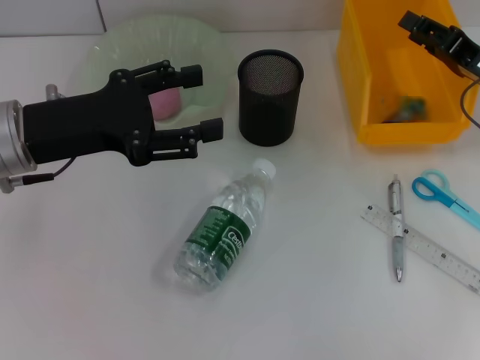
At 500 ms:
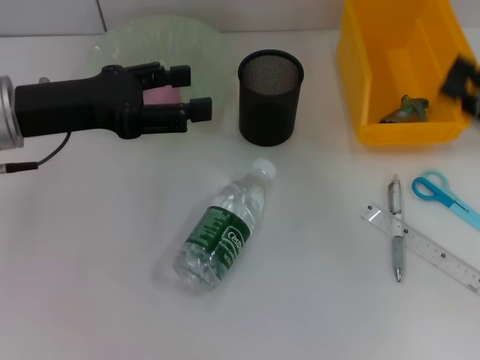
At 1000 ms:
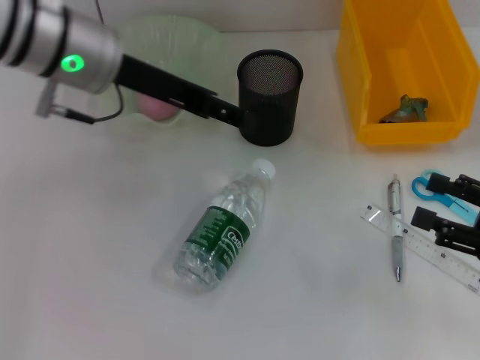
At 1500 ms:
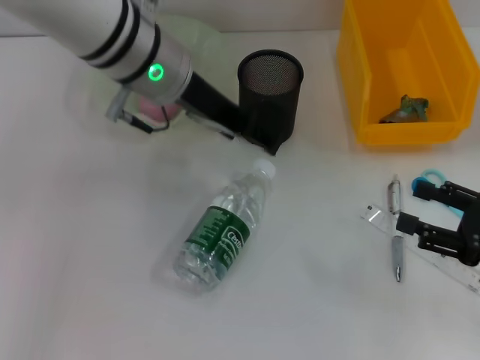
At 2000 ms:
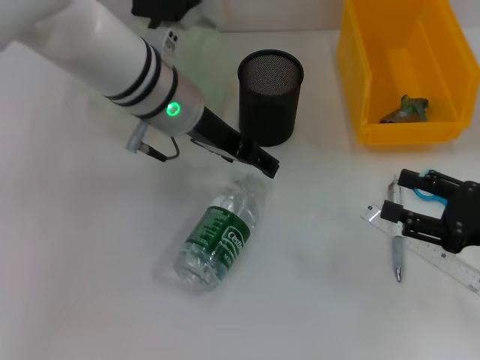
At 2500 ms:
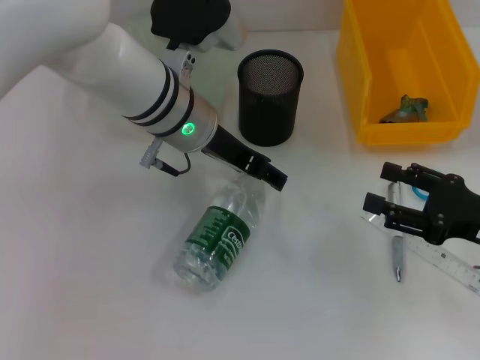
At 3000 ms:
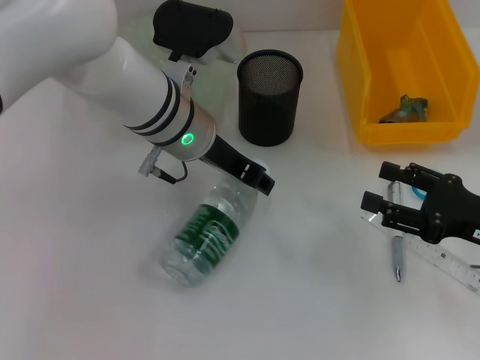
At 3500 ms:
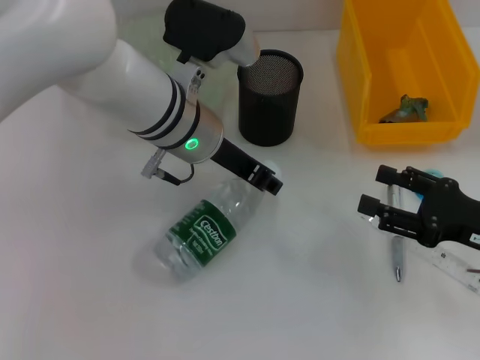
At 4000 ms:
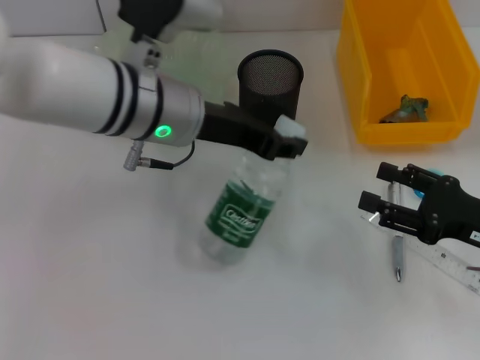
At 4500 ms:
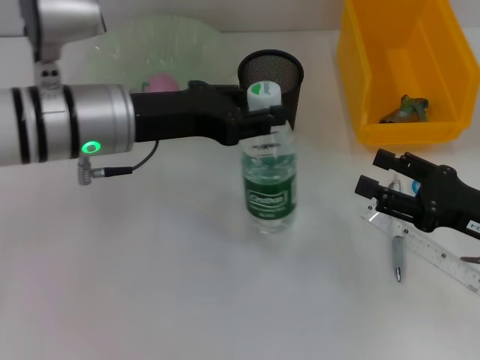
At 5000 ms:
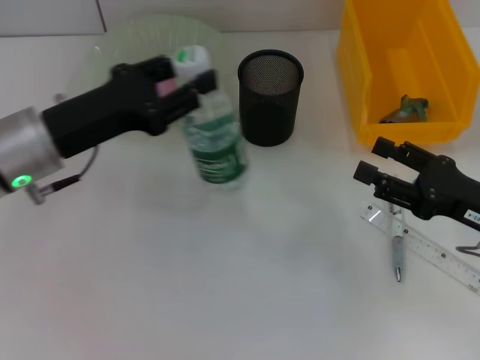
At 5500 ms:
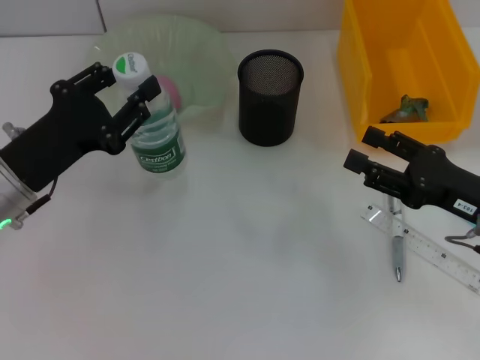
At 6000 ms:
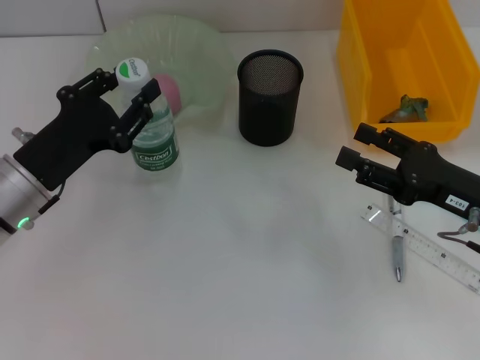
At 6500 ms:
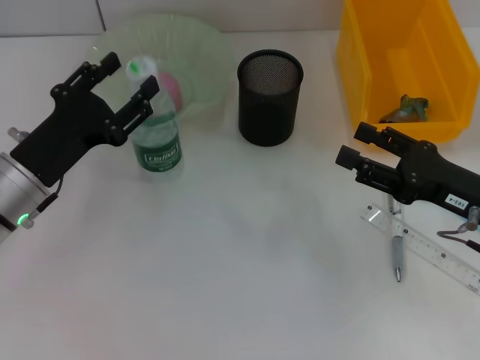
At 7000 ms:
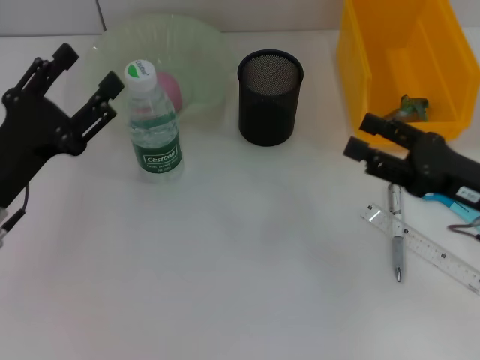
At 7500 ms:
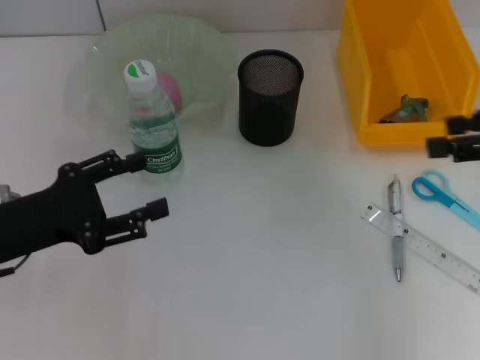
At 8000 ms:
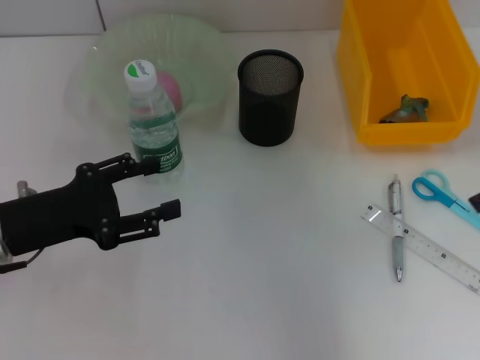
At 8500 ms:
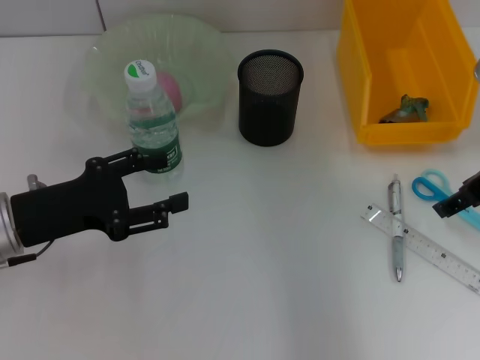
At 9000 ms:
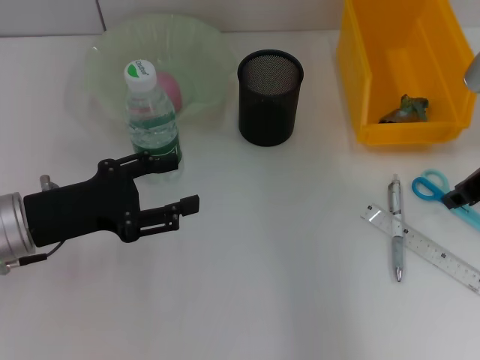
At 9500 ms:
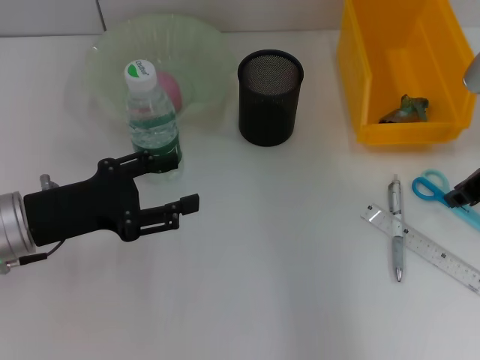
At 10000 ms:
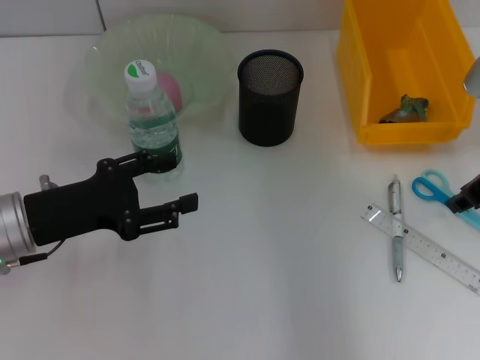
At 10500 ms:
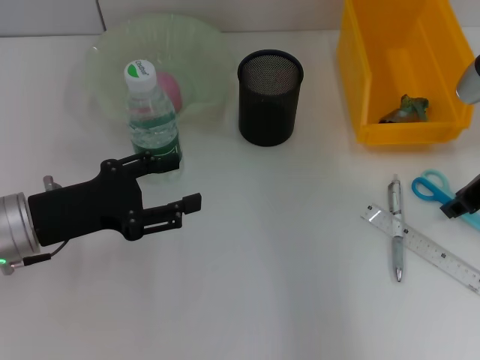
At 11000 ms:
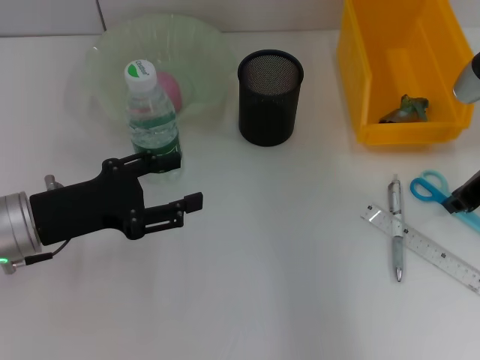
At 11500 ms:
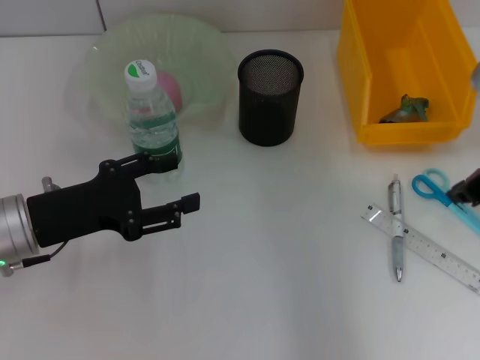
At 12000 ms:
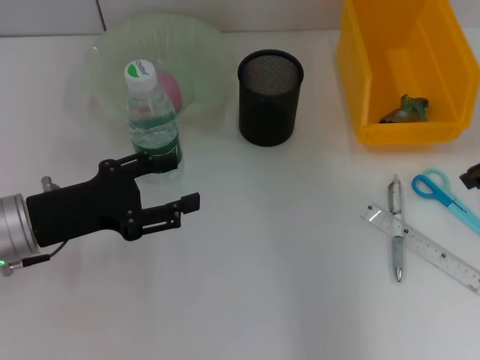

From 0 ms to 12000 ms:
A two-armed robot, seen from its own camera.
Step, from 500 ms to 3000 ms: Grab the water bottle with the left hand.
Step, from 3500 ms to 6500 ms: Place the water bottle on the table with the left hand.
From 0 ms to 2000 ms: The left gripper moves to the right and forward, roughly 15 cm, while the right gripper goes some 15 cm backward, and opens.
From 2000 ms to 4000 ms: The left gripper closes its fingers.
From 4000 ms to 6000 ms: The left gripper heads to the left, downward and backward, covering roughly 20 cm.
From 6000 ms to 8000 ms: The left gripper opens up. The right gripper goes about 15 cm upward.
From 8000 ms to 10000 ms: The right gripper shifts roughly 5 cm downward, and closes its fingers.
From 10000 ms to 12000 ms: The grippers make only small movements.

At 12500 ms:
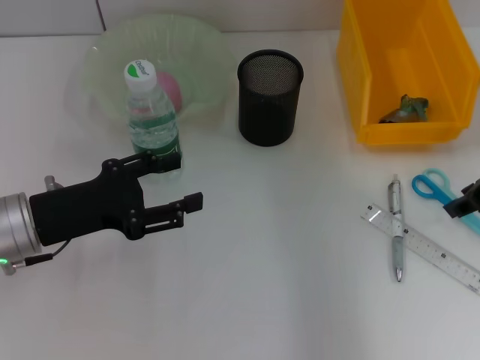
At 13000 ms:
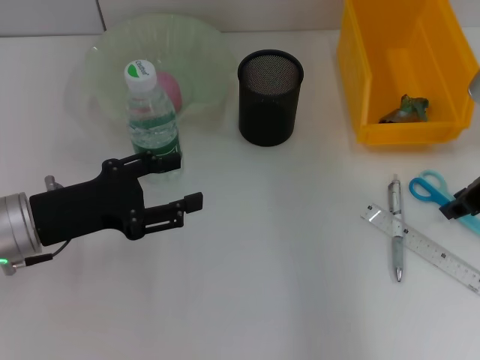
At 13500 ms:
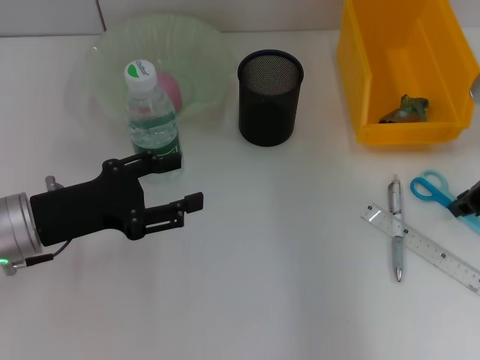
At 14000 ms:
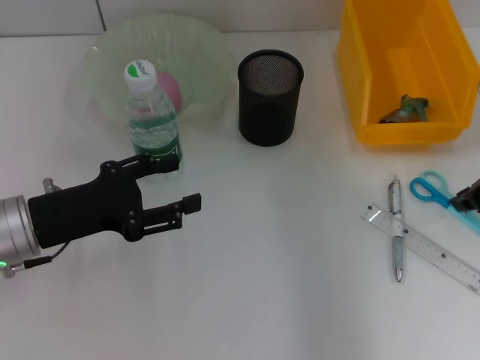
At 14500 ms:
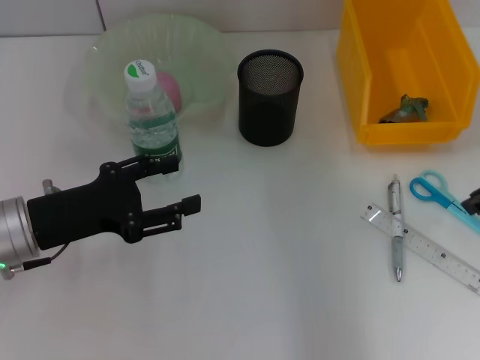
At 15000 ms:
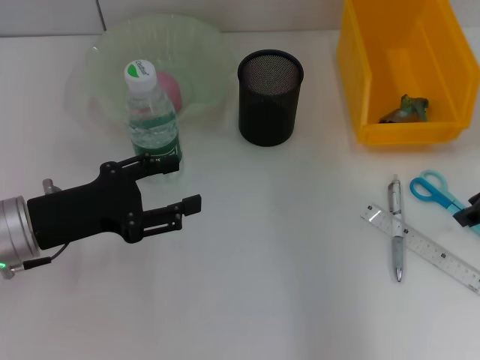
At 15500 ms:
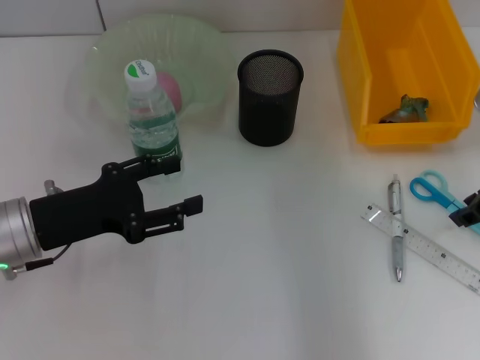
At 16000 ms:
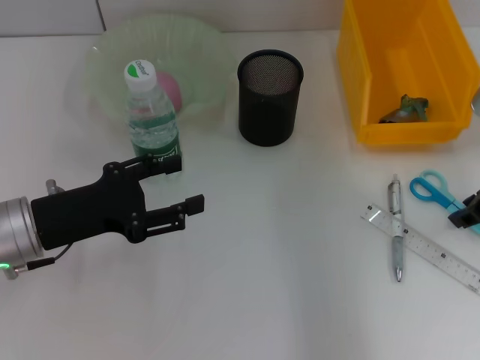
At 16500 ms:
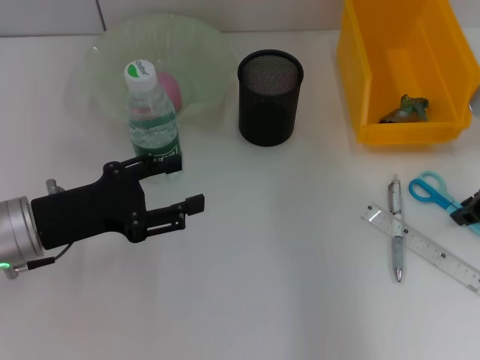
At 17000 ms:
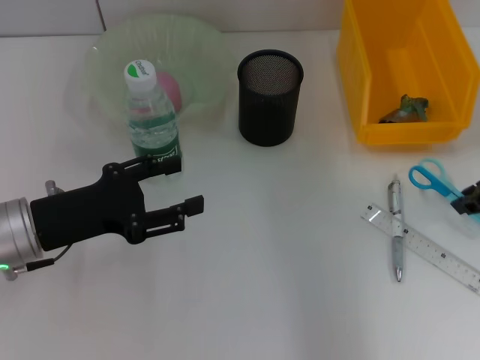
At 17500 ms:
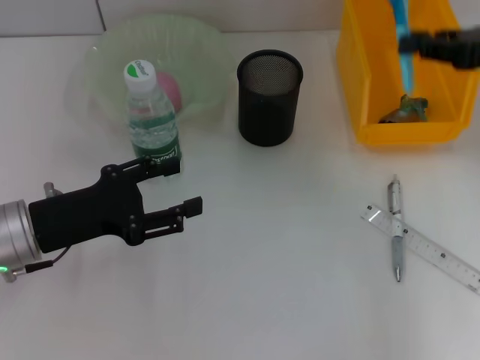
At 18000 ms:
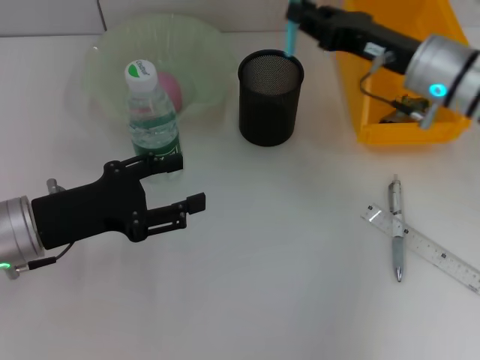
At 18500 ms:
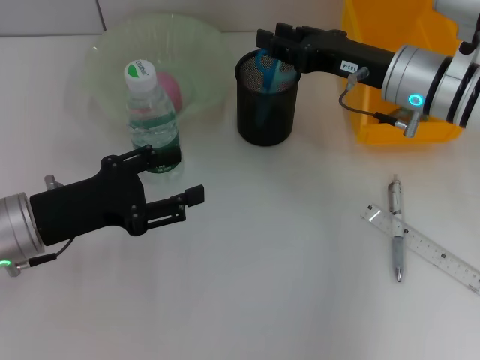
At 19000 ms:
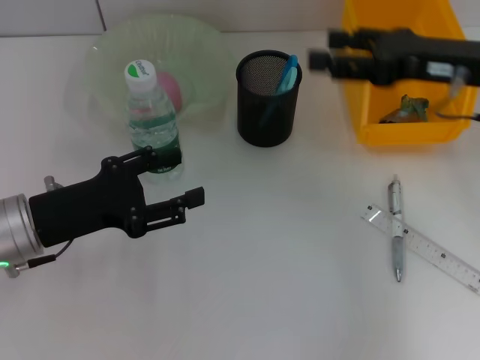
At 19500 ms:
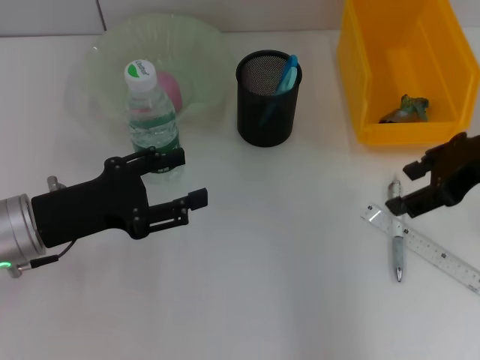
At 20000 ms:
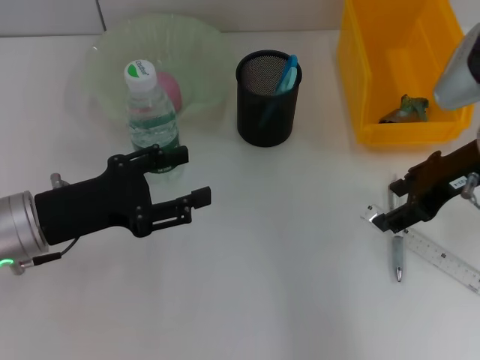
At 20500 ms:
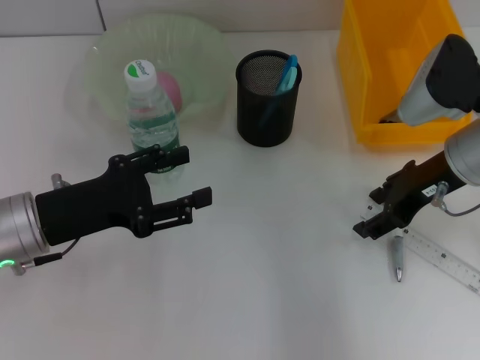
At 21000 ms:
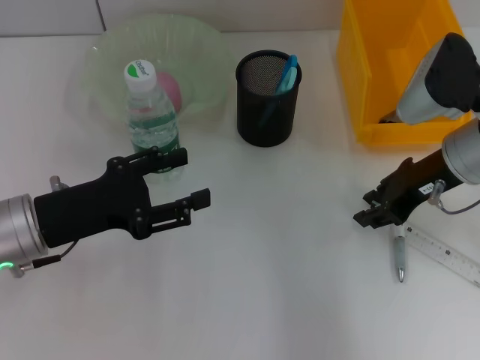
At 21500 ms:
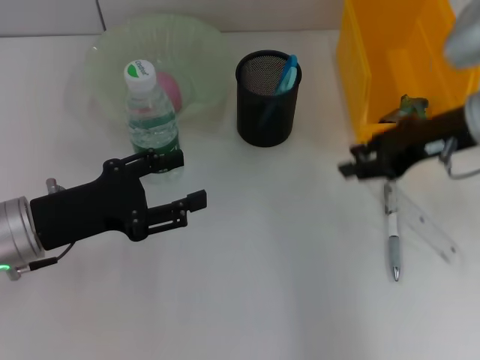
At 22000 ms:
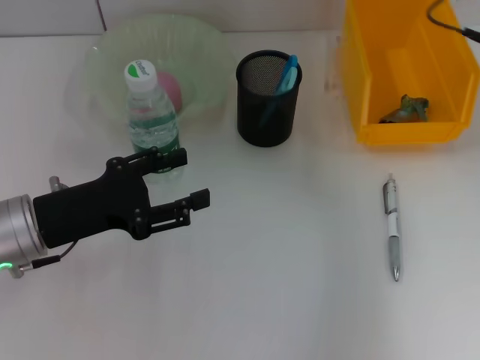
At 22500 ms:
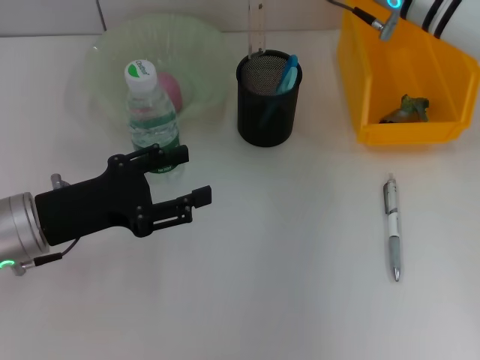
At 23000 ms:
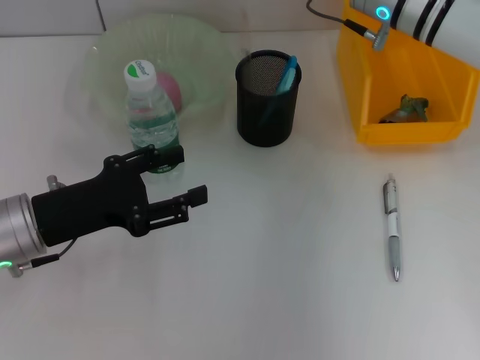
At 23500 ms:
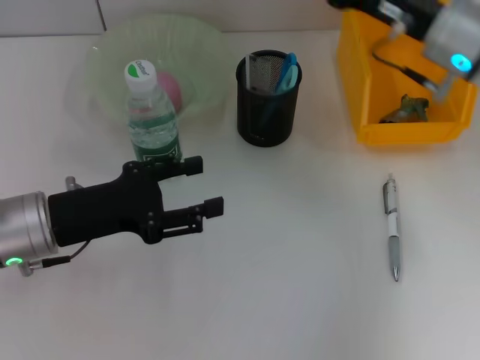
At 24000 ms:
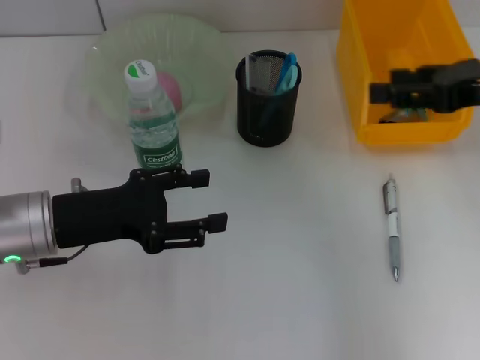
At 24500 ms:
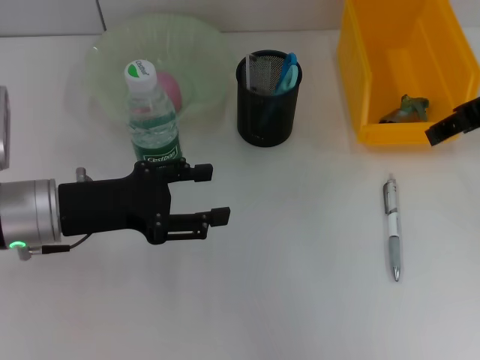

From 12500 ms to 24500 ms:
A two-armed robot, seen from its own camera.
Step, from 12500 ms to 16500 ms: Grab the blue scissors with the right hand.
Step, from 17000 ms to 18500 ms: Place the blue scissors into the pen holder with the right hand.
Step, from 19000 ms to 21000 ms: Grab the ruler with the right hand.
Step, from 21500 ms to 23000 ms: Place the ruler into the pen holder with the right hand.
From 12500 ms to 14500 ms: The right gripper closes up.
From 14500 ms to 16500 ms: There are only small adjustments of the grippers.
From 16500 ms to 18500 ms: The right gripper goes roughly 10 cm to the left and forward.
From 18500 ms to 20500 ms: The right gripper opens.
From 20500 ms to 22500 ms: The right gripper heads forward, to the left and upward, covering approximately 10 cm, and closes up.
From 22500 ms to 24500 ms: The right gripper travels backward, to the right and upward by approximately 15 cm.

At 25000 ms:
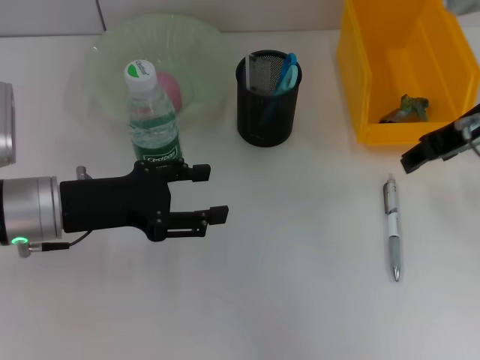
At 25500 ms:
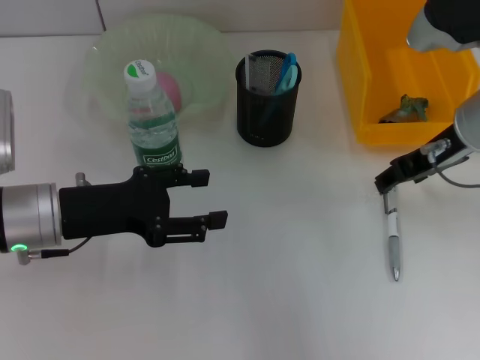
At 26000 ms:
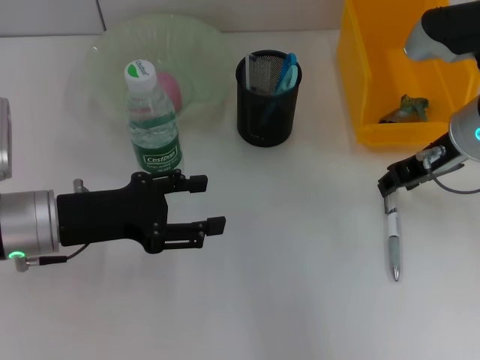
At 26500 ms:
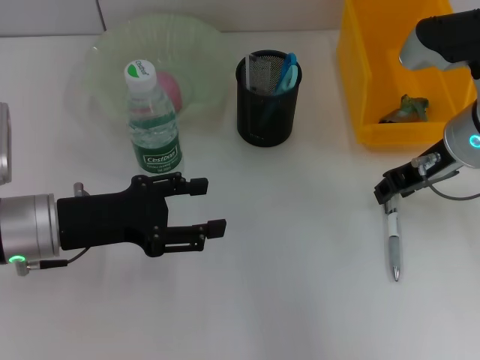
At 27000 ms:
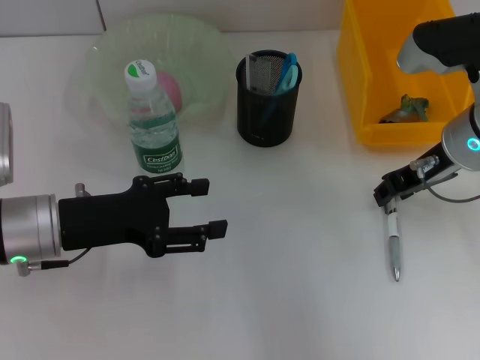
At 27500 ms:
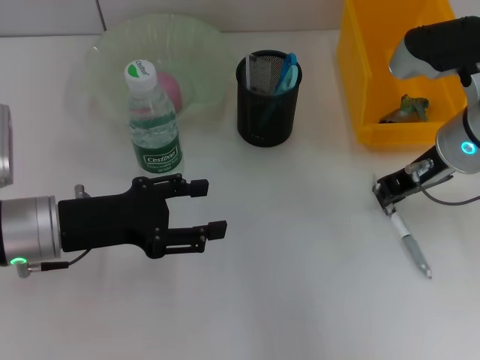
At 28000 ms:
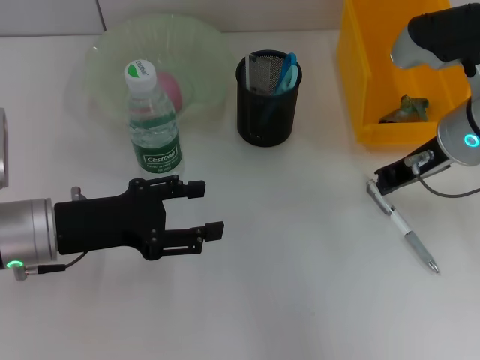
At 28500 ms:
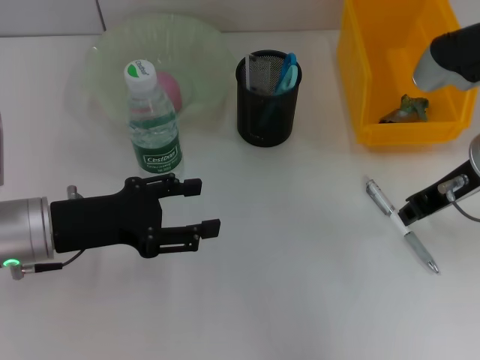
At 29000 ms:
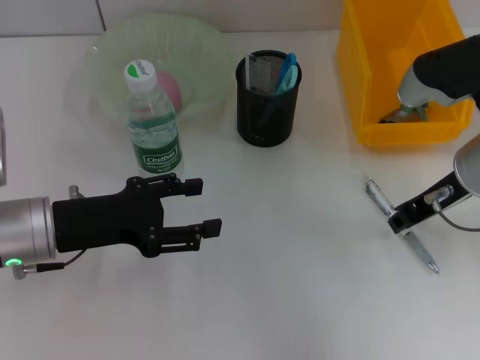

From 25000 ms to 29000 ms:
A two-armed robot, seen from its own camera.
From 25000 ms to 27000 ms: The right gripper heads downward, covering approximately 5 cm.
From 27000 ms to 29000 ms: The right gripper closes, then reopens.
